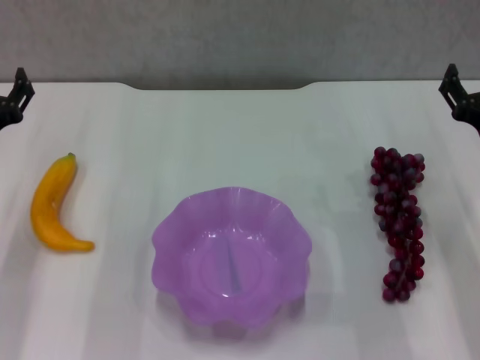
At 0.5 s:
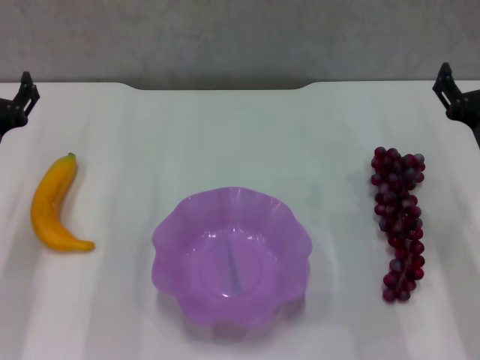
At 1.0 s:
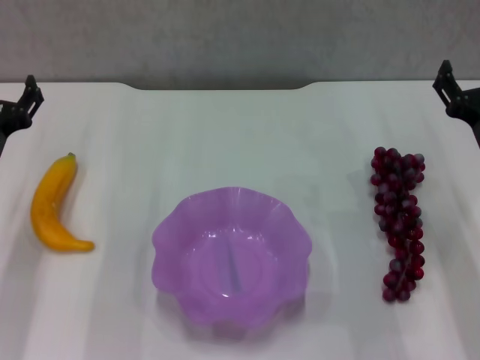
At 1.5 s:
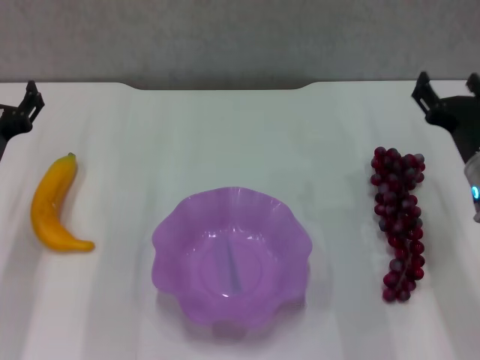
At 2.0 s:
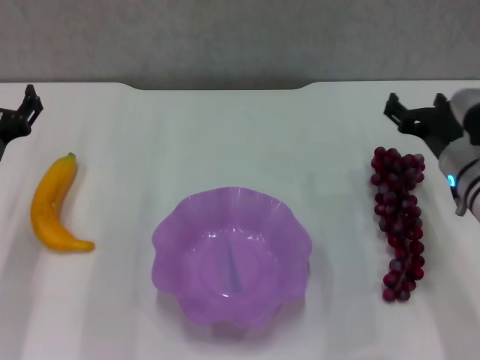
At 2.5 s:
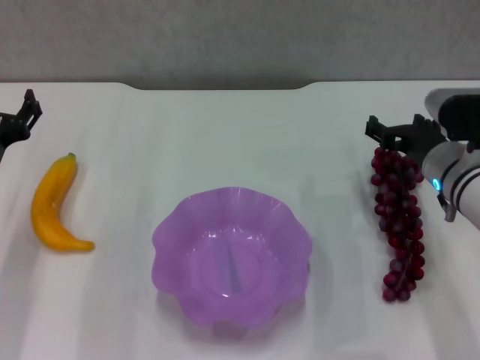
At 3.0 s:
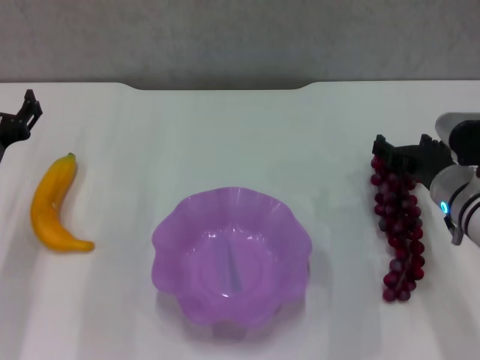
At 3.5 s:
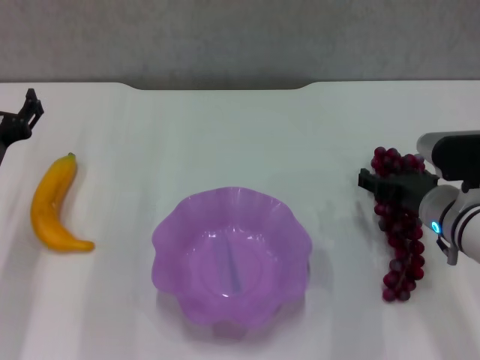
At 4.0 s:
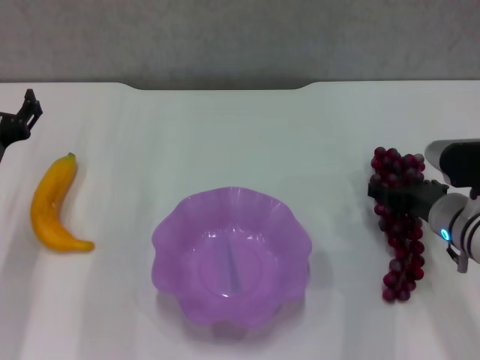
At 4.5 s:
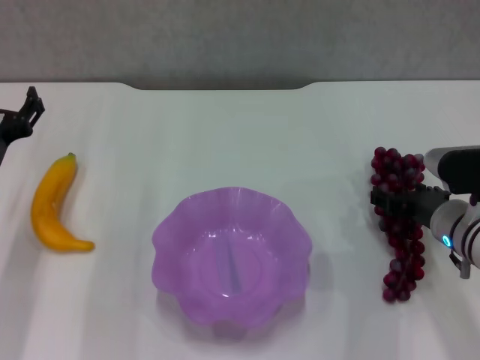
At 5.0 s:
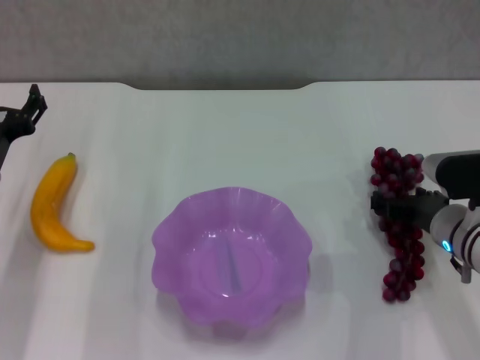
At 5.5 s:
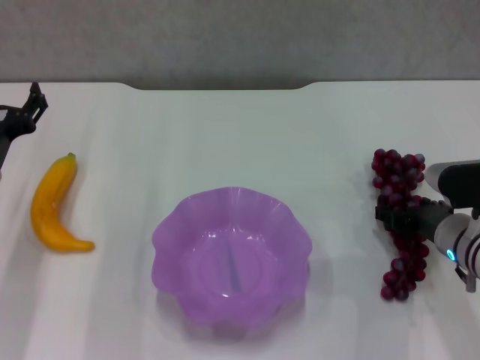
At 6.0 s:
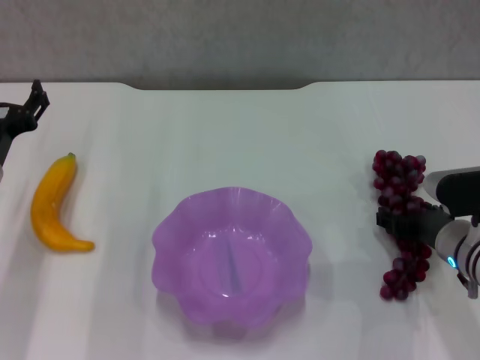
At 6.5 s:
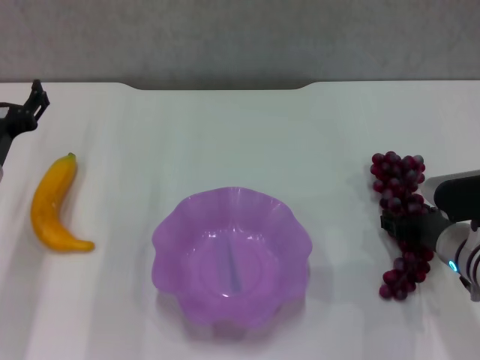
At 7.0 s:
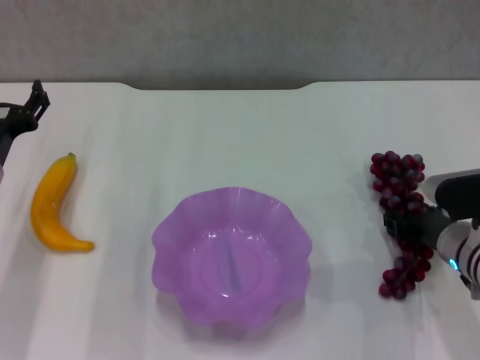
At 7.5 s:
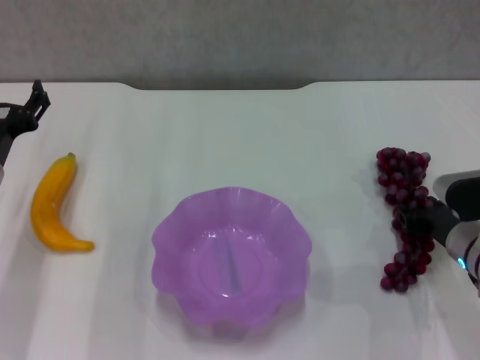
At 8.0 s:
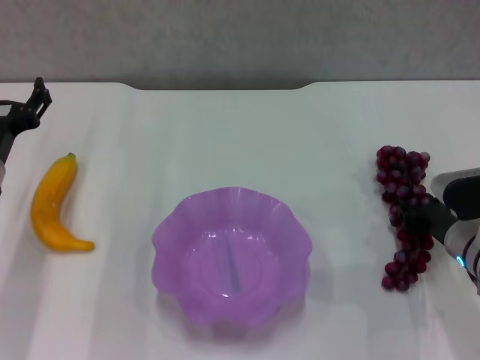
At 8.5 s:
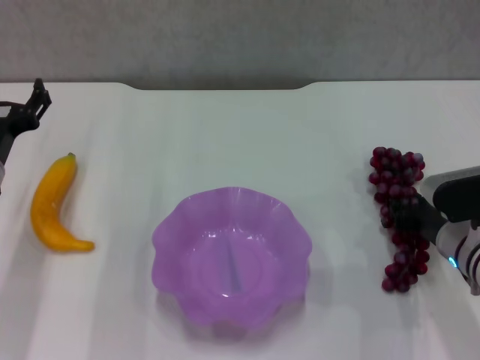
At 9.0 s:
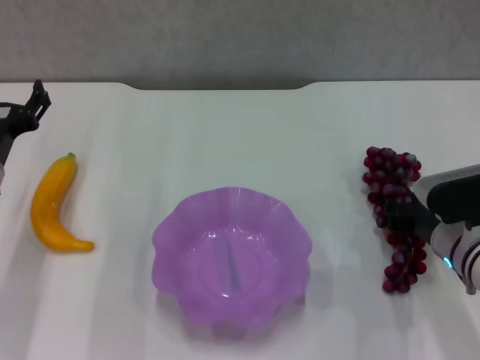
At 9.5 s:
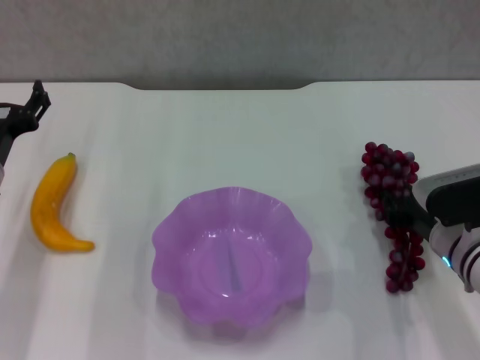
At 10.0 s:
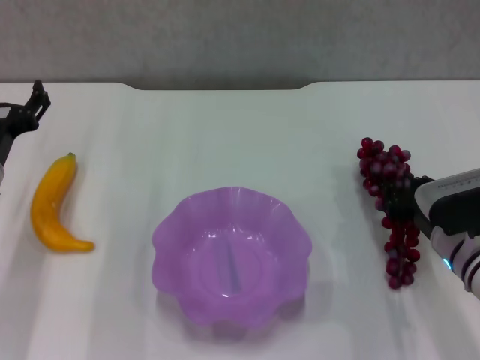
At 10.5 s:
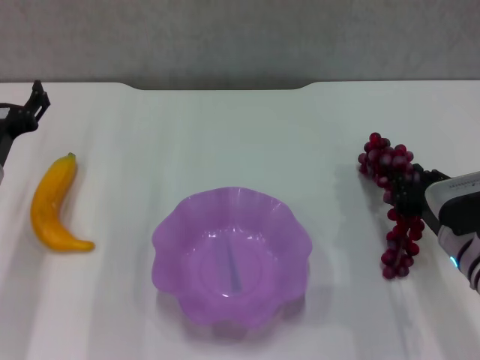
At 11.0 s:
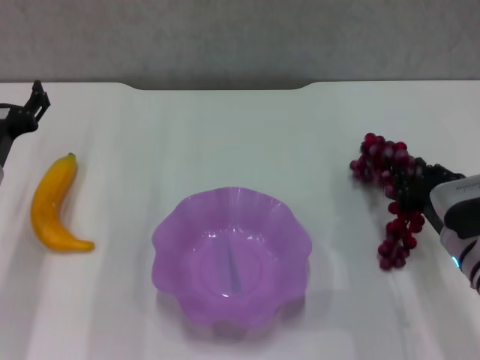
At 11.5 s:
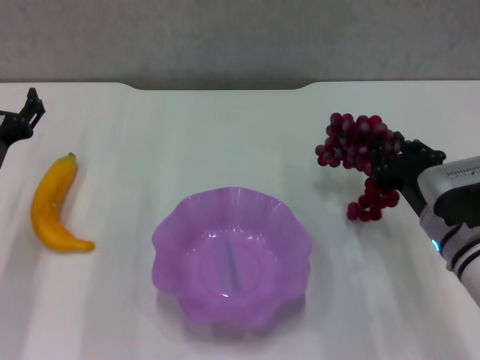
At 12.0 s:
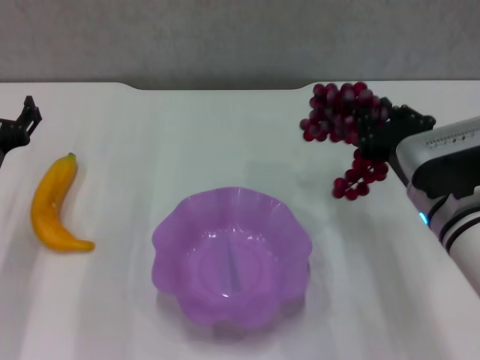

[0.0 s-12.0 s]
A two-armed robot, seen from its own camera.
Step, 0.0 to 8.0 s: Grasp the grape with right gripper.
0.0 to 2.0 s: The right gripper changes place by some 5 cm.
2.0 to 4.0 s: The right gripper shifts by about 5 cm.
4.0 to 6.0 s: The grippers move only a little.
6.0 to 8.0 s: The right gripper closes its fingers.
8.0 to 10.0 s: The grippers stay close to where they were, moving slightly.
10.0 to 12.0 s: The right gripper moves upward, about 5 cm.

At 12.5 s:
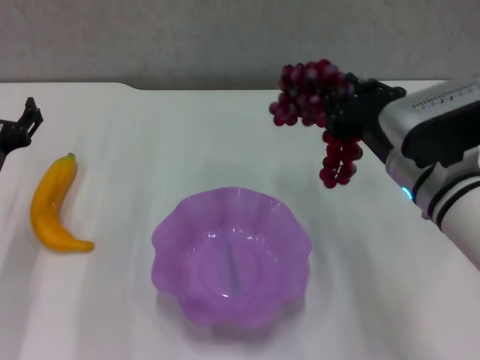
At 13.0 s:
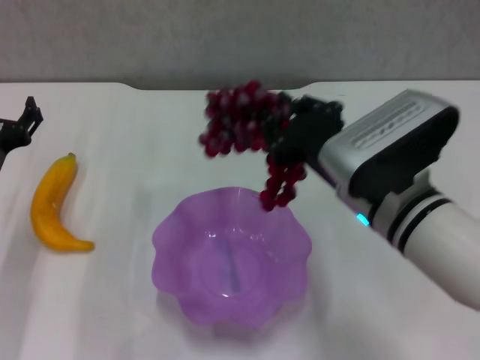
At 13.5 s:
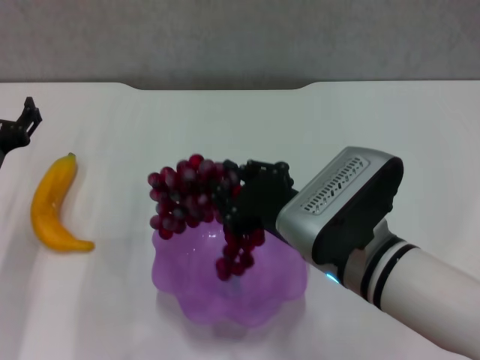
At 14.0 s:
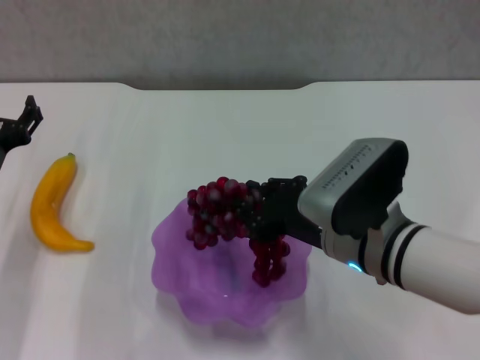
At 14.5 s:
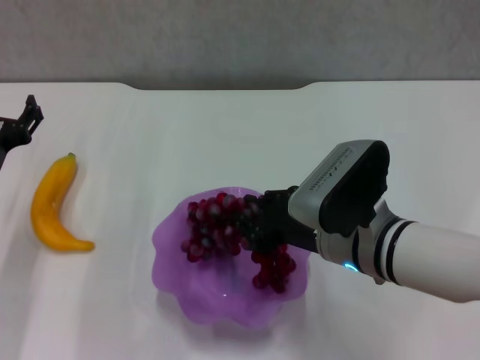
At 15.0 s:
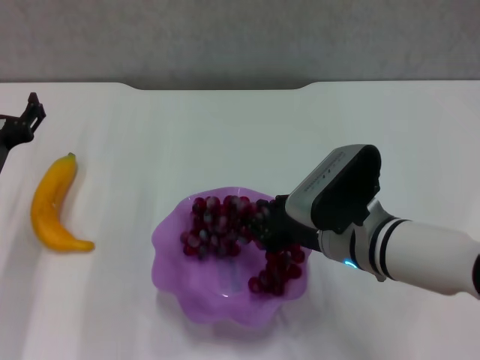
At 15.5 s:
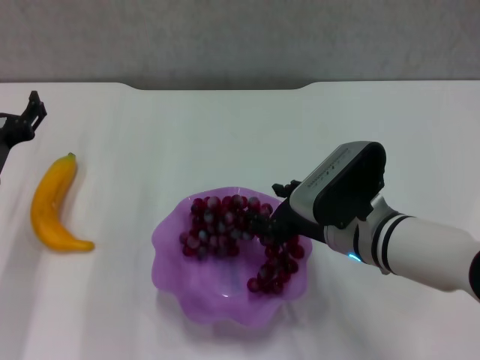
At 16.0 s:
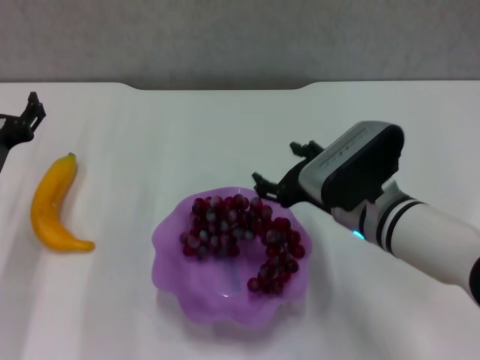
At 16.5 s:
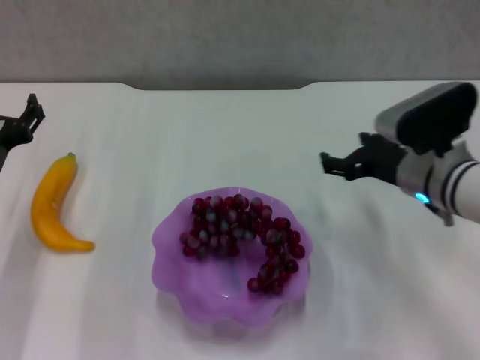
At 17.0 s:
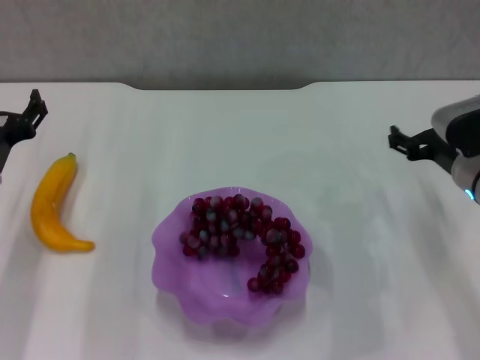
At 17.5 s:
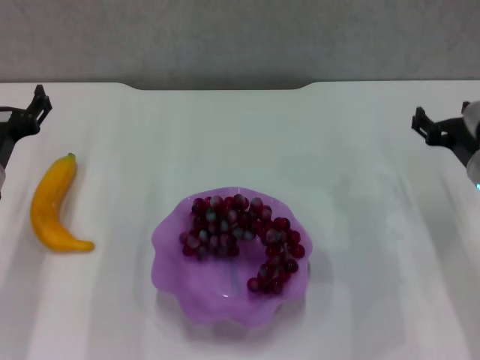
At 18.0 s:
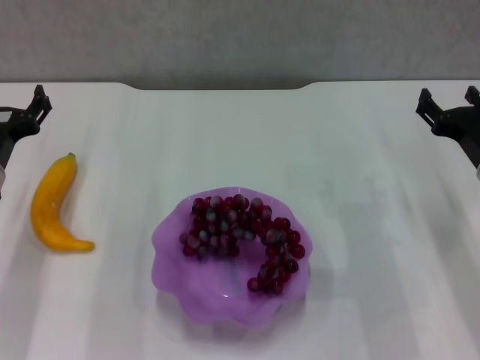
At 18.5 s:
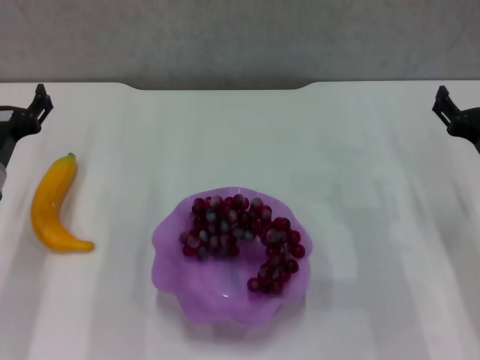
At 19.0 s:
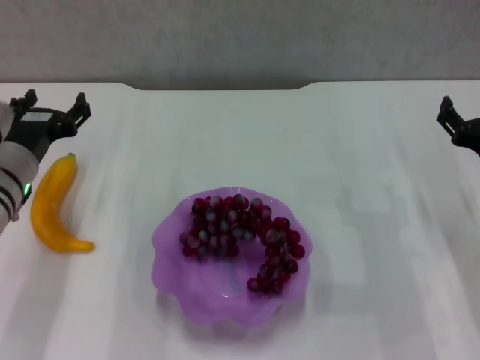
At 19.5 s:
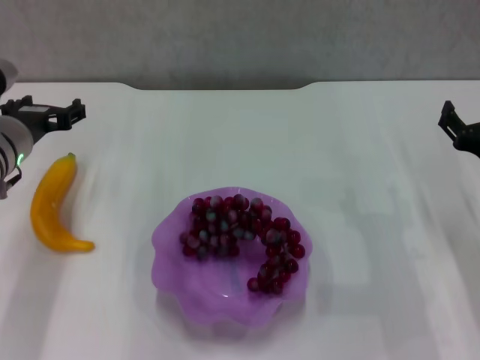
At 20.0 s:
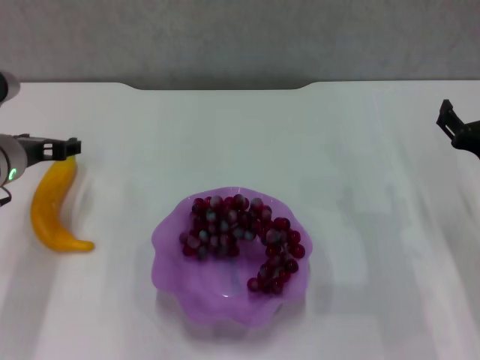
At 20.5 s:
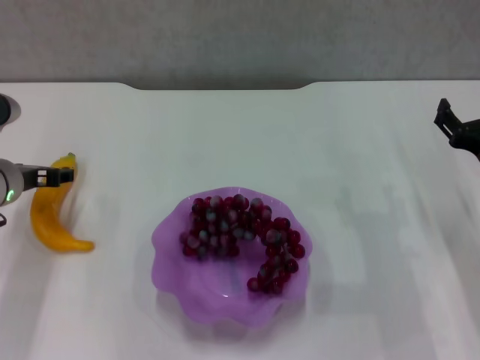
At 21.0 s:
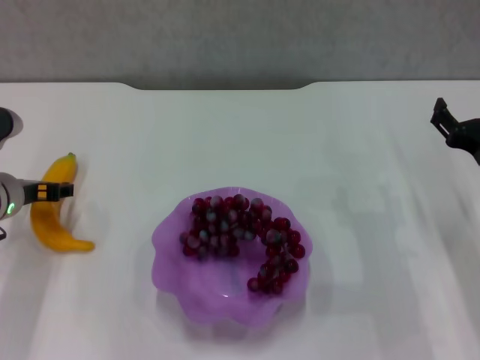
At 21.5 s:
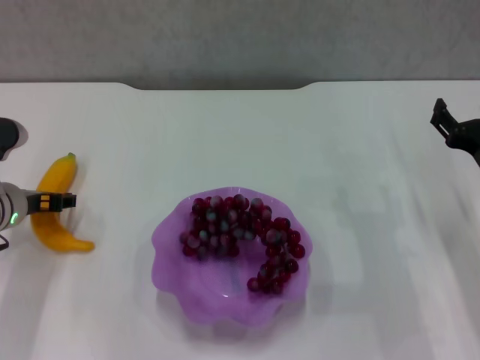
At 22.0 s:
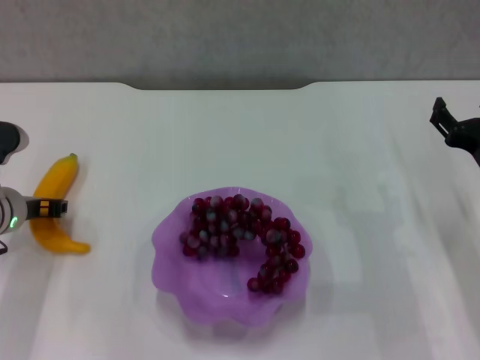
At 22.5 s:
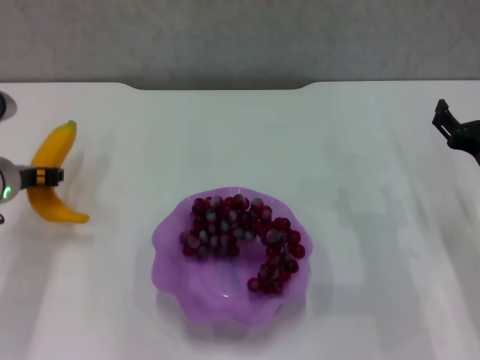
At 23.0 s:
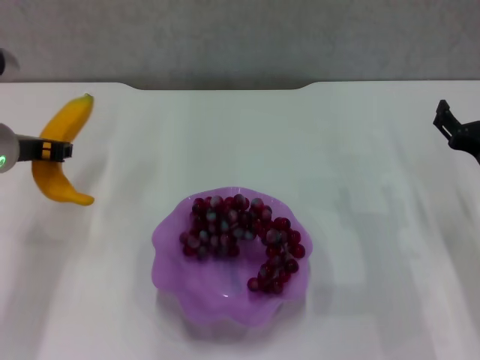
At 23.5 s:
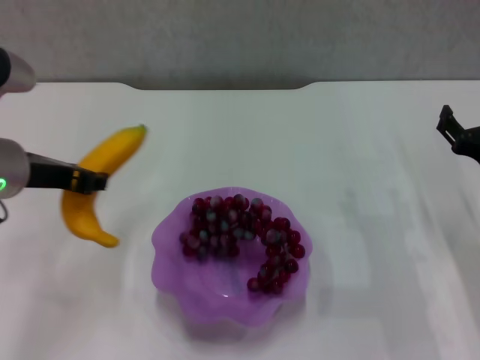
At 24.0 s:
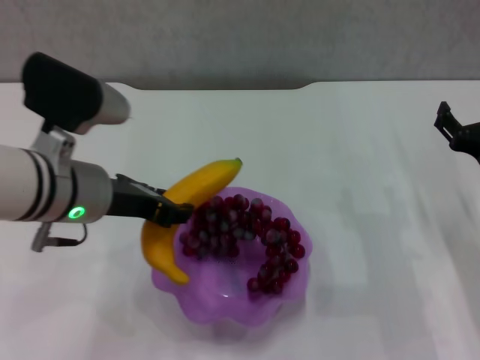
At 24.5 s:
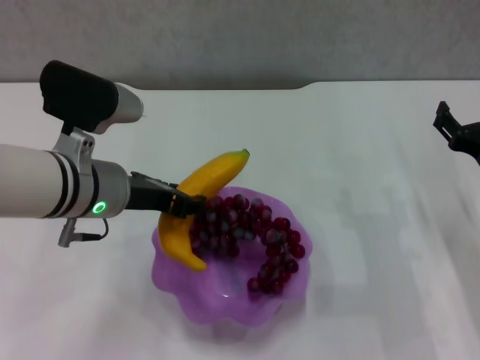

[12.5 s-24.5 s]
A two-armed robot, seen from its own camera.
Step, 12.5 to 15.0 s: Place the grape in the purple plate with right gripper.
Step, 16.0 to 22.0 s: Grasp the banana with left gripper.
12.5 to 14.5 s: The right gripper ends up some 5 cm from where it was.
14.5 to 16.5 s: The right gripper heads to the right and forward, covering about 10 cm, and opens up.
16.5 to 18.5 s: The right gripper moves to the right, approximately 10 cm.
20.5 to 22.5 s: The left gripper closes its fingers.
22.5 to 24.5 s: The left gripper moves to the right, upward and backward, some 15 cm.

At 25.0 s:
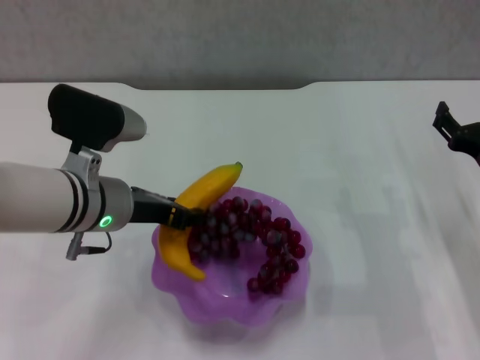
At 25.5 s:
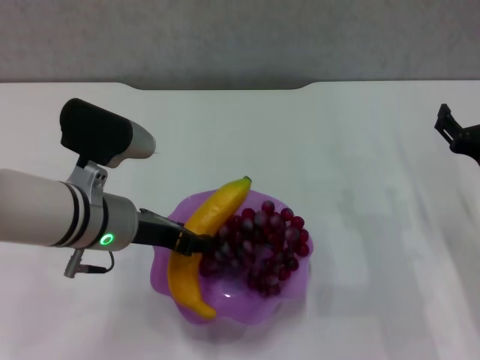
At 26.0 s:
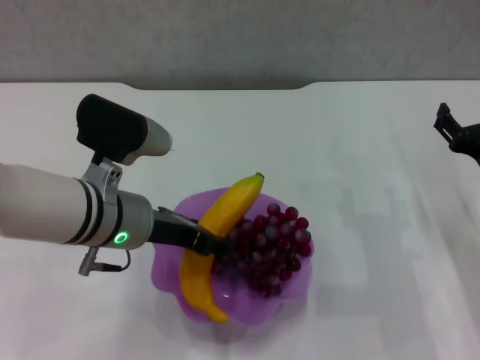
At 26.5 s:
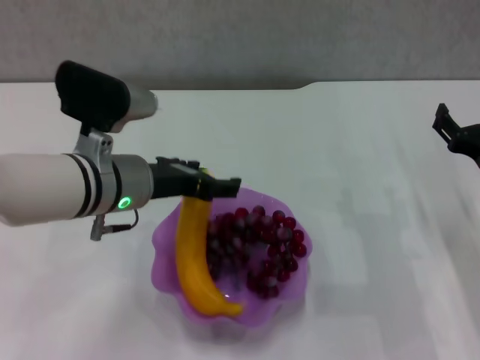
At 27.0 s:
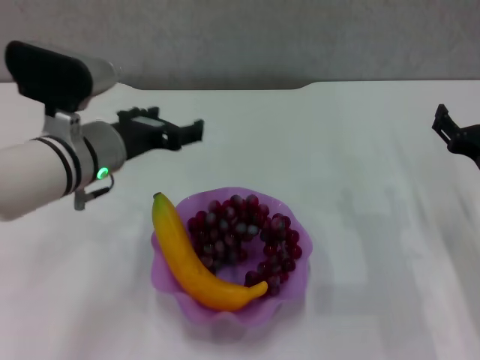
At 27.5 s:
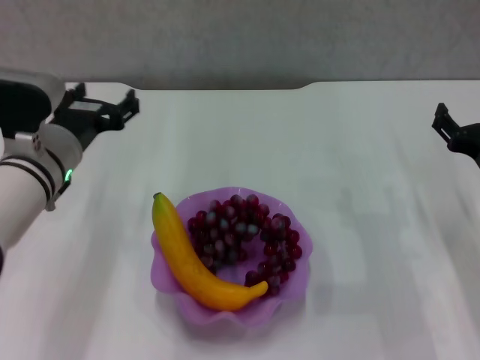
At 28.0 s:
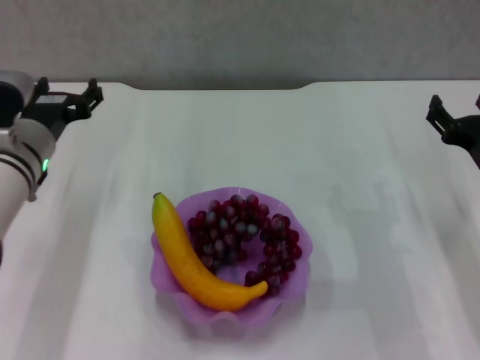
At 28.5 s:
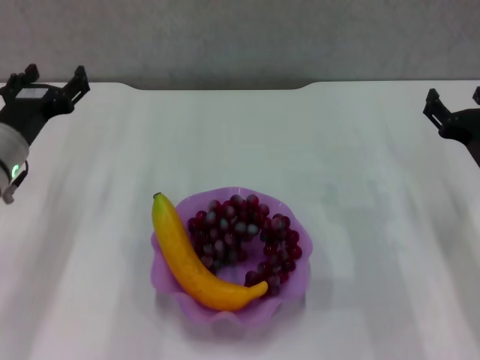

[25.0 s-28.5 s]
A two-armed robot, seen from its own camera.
25.0 to 27.0 s: The left gripper opens up.
27.0 to 28.5 s: The left gripper goes approximately 10 cm to the left.
